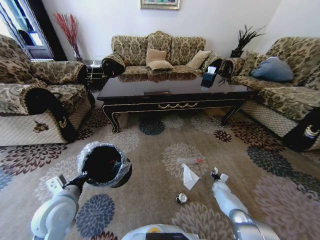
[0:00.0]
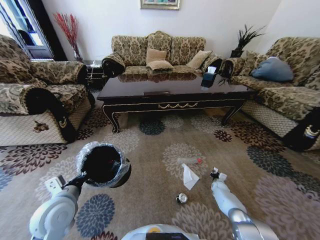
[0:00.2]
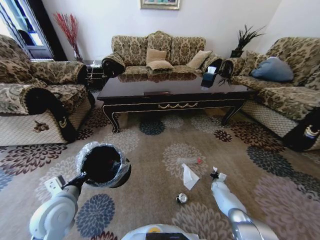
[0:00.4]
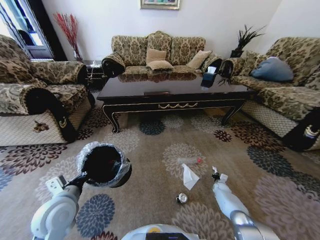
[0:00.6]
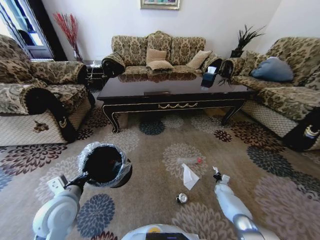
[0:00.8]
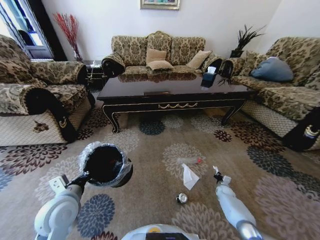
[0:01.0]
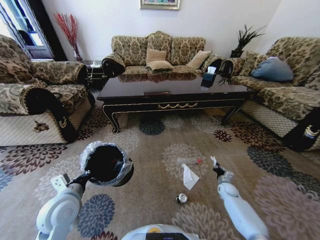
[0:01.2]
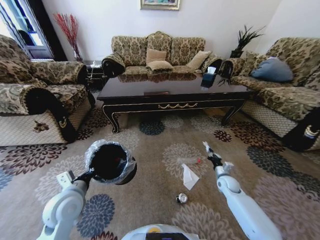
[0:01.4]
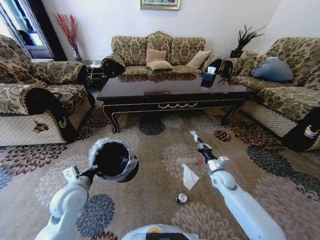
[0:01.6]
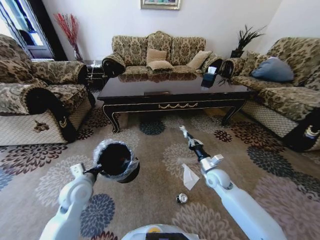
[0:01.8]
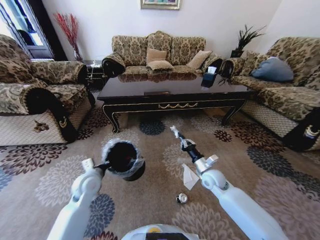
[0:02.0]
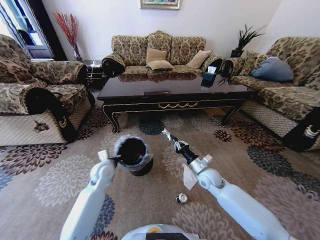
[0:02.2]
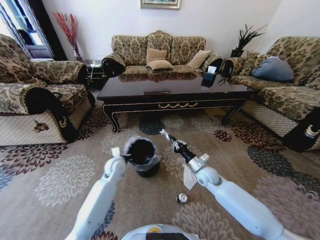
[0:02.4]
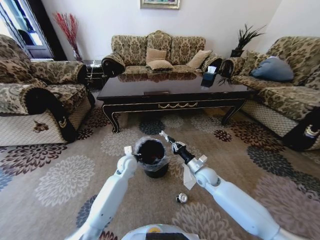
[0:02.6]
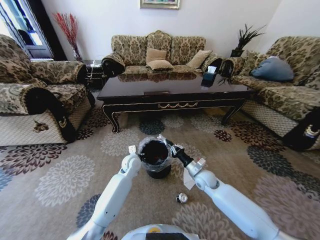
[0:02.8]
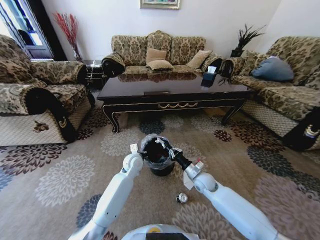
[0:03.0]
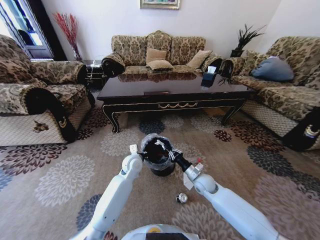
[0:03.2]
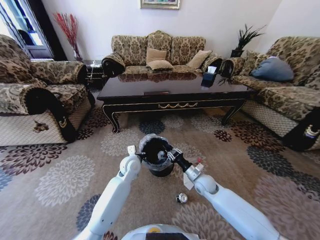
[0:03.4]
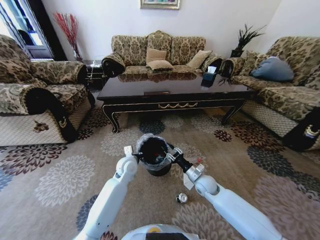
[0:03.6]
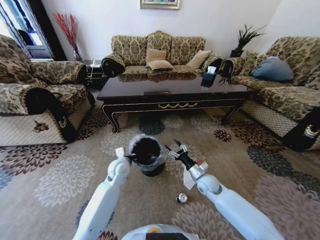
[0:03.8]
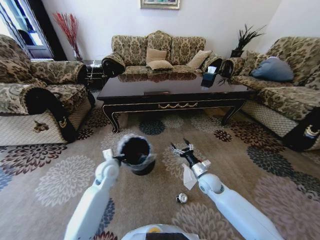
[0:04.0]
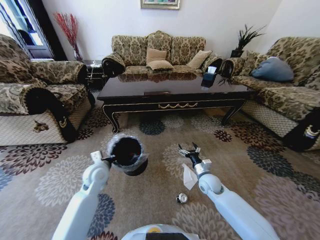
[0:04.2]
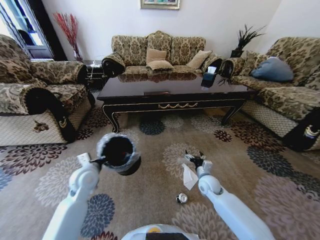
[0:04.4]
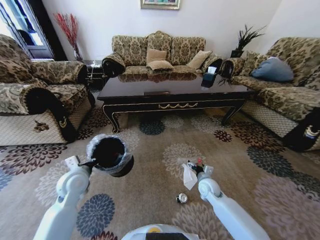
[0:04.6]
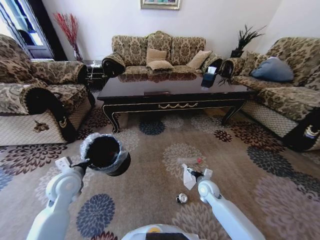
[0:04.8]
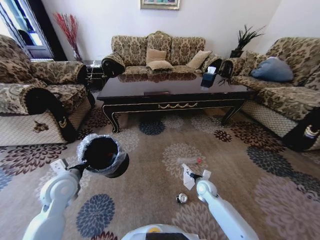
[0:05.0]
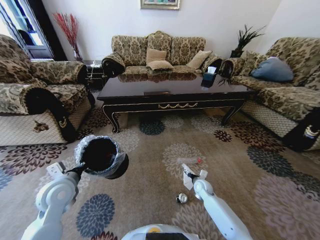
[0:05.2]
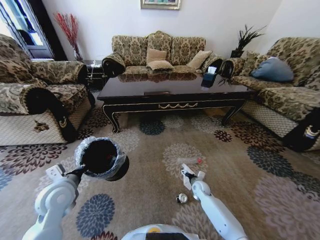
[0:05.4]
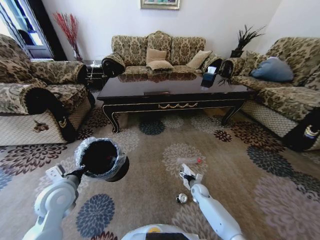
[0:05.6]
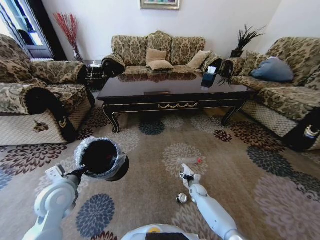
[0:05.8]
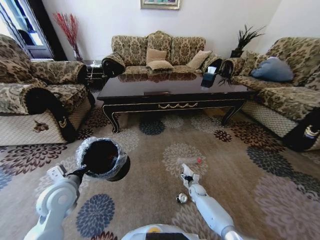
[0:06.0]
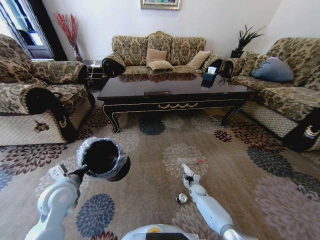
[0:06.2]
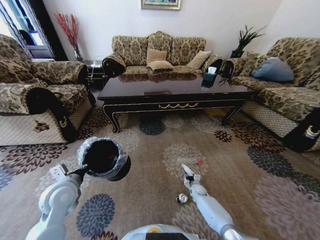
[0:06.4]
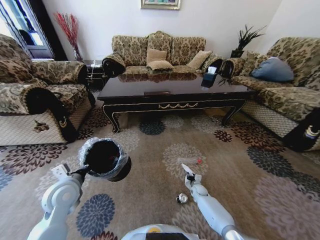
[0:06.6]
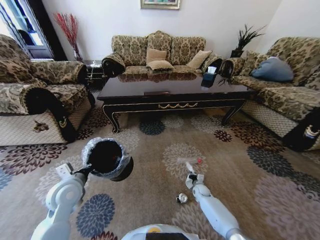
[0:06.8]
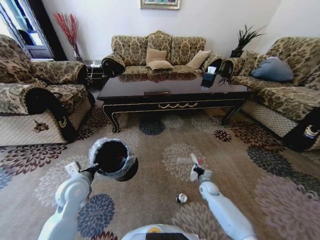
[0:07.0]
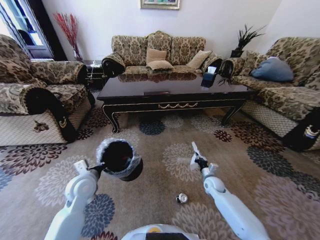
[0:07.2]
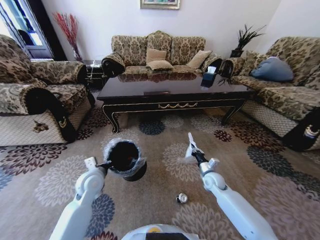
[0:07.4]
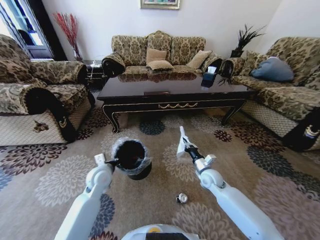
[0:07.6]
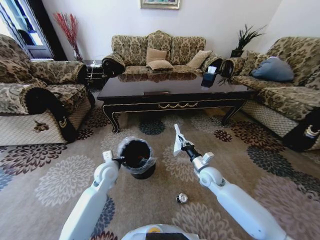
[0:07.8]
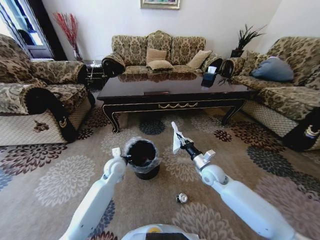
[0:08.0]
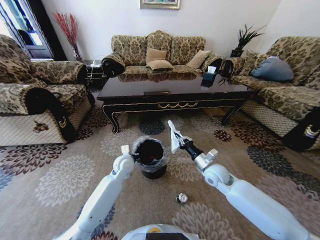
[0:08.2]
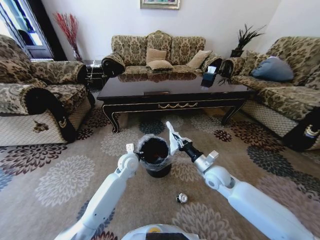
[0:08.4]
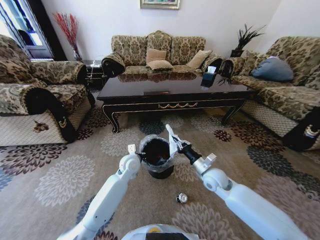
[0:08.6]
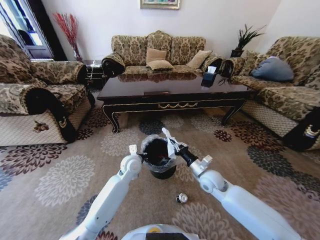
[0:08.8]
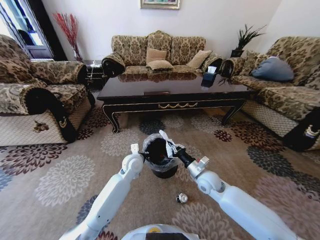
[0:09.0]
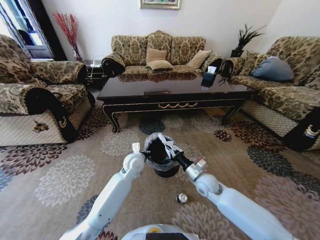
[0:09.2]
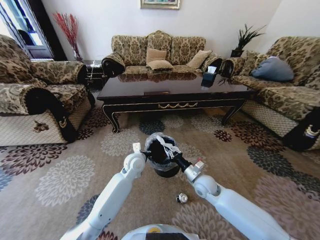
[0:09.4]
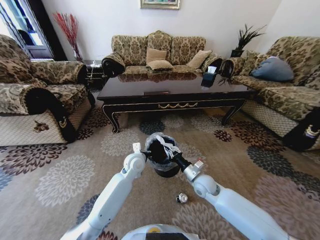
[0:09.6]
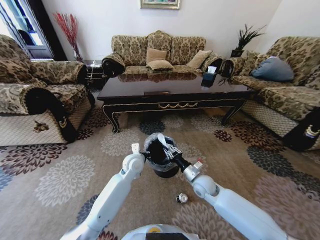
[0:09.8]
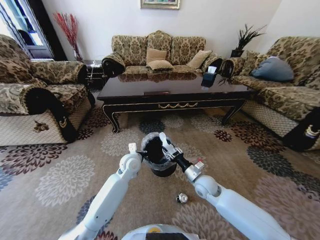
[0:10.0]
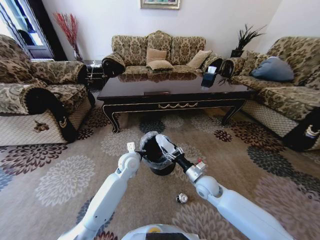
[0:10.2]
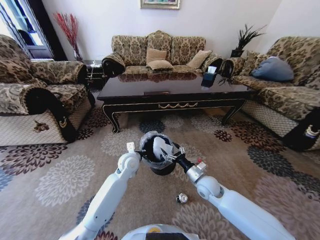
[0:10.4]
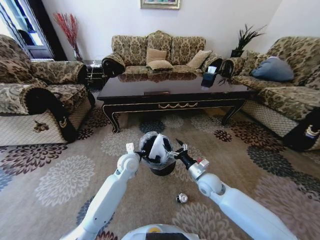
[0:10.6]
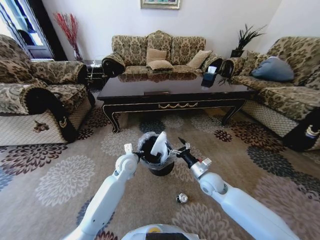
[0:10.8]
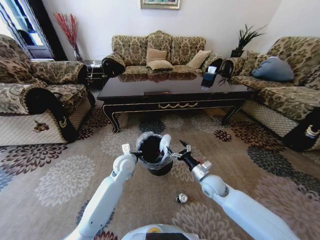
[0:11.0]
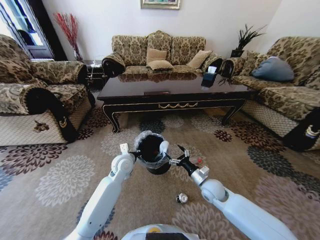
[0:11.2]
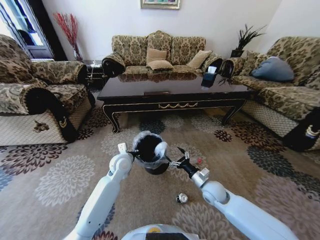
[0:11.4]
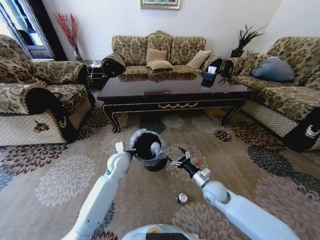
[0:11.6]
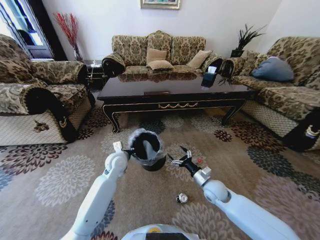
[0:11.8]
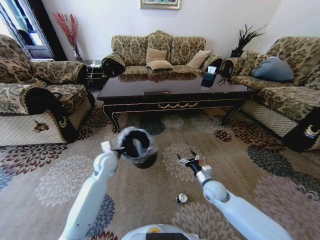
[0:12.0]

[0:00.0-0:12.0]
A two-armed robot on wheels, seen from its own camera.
Task of the whole recording: Move to the front of the table and pick up the trash from the floor, then place it into the trash bin.
0:00.0 to 0:01.6: The right gripper goes some 25 cm upward and to the left, and closes up.
0:01.6 to 0:03.0: The right gripper goes roughly 10 cm to the left; the left gripper travels to the right and forward by about 25 cm.
0:03.0 to 0:04.4: The left gripper travels to the left and backward by some 20 cm, while the right gripper opens up.
0:04.4 to 0:06.0: The left gripper is displaced backward by roughly 10 cm. The right gripper travels downward by about 20 cm.
0:06.0 to 0:07.6: The right gripper travels upward by some 20 cm, and closes up. Meanwhile the left gripper is displaced forward, to the right and downward by roughly 15 cm.
0:07.6 to 0:09.0: The left gripper is displaced to the right and forward by about 15 cm. Meanwhile the right gripper shifts by about 5 cm.
0:09.0 to 0:10.4: The right gripper opens up.
0:10.4 to 0:12.0: The left gripper goes roughly 10 cm to the left, while the right gripper ends up some 5 cm from where it was.

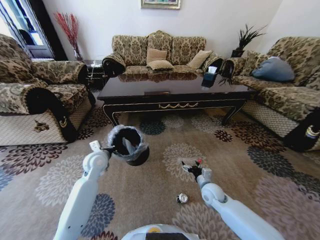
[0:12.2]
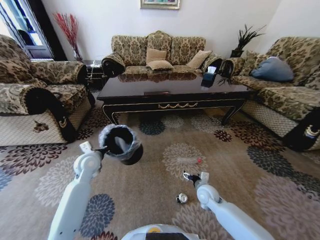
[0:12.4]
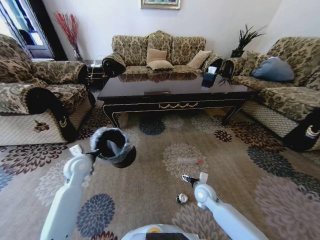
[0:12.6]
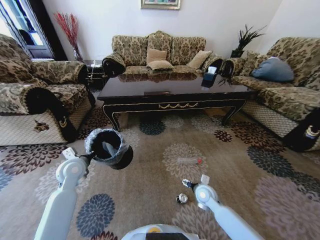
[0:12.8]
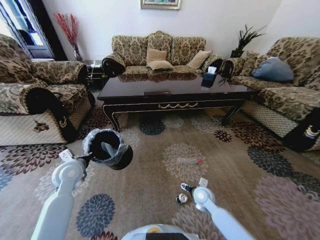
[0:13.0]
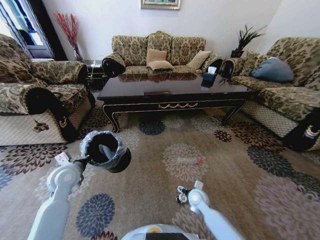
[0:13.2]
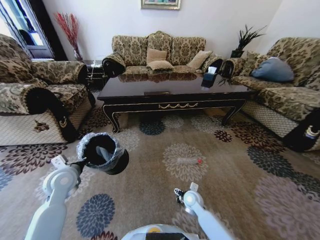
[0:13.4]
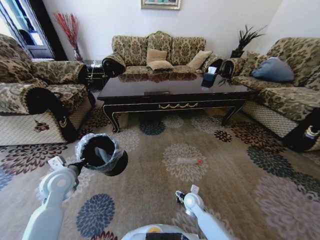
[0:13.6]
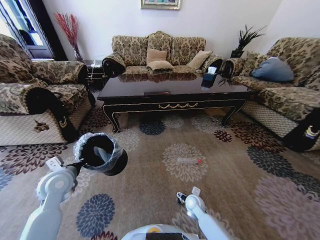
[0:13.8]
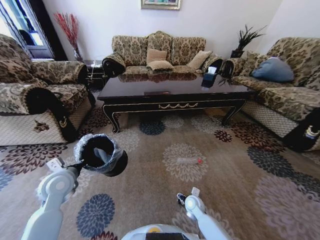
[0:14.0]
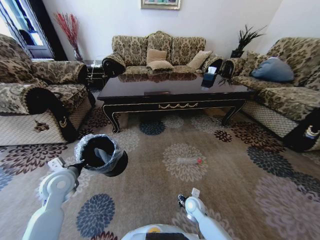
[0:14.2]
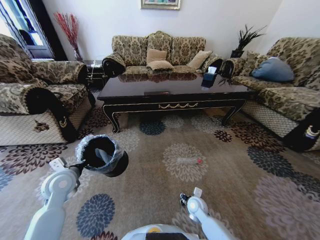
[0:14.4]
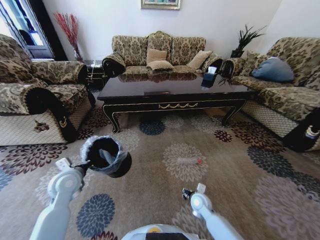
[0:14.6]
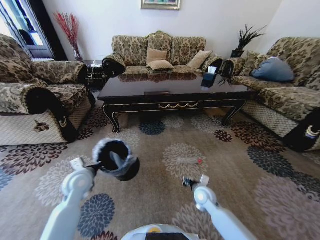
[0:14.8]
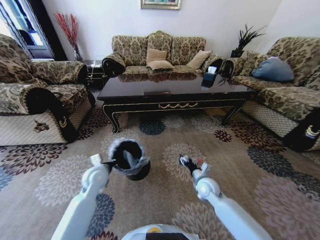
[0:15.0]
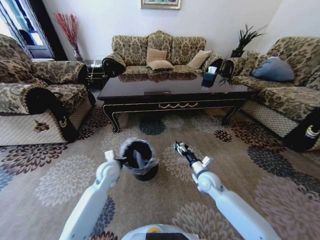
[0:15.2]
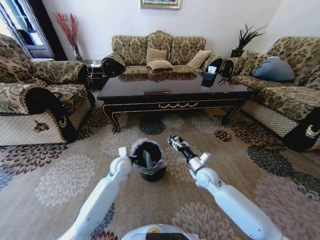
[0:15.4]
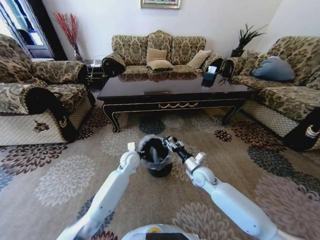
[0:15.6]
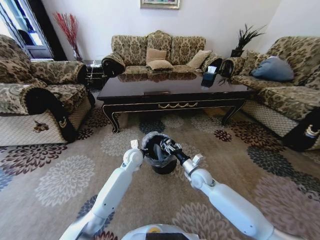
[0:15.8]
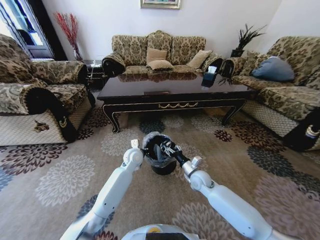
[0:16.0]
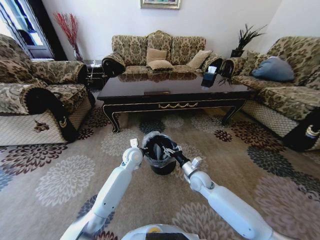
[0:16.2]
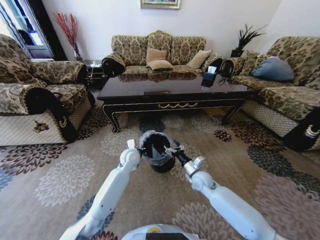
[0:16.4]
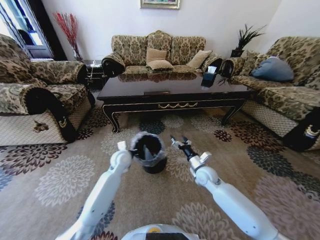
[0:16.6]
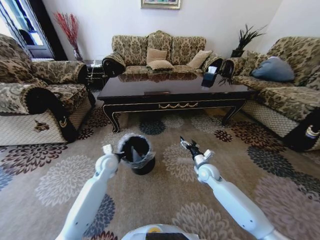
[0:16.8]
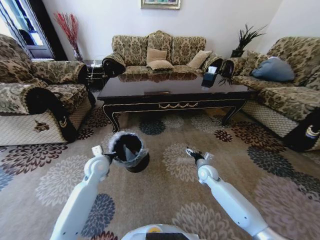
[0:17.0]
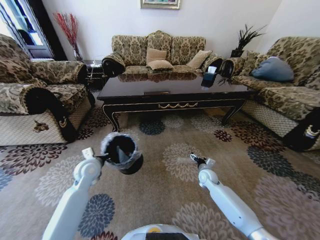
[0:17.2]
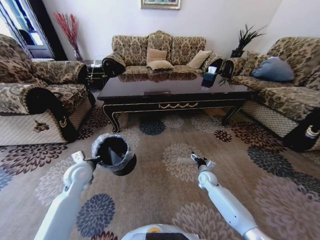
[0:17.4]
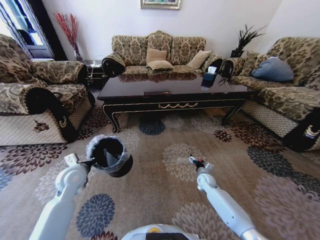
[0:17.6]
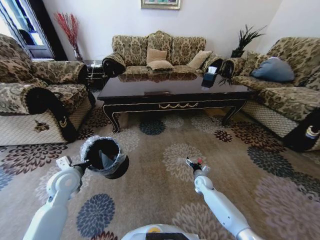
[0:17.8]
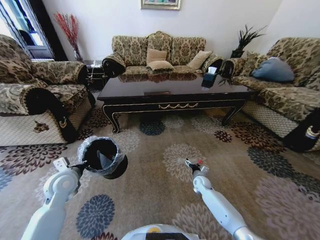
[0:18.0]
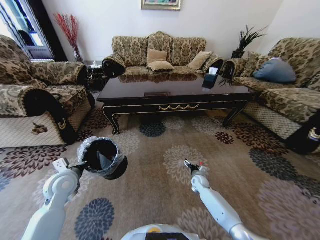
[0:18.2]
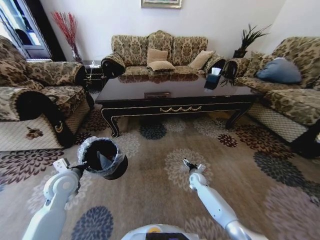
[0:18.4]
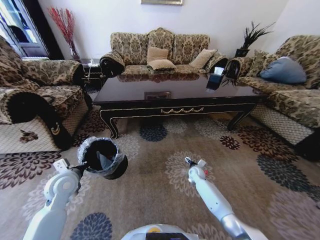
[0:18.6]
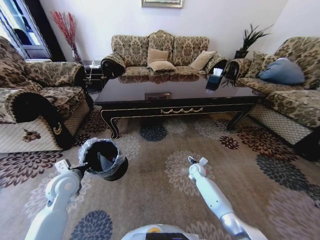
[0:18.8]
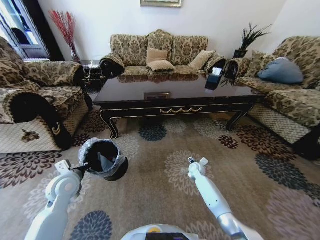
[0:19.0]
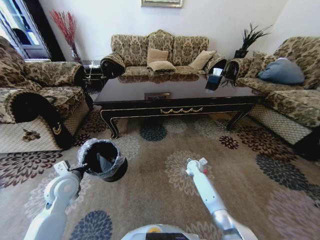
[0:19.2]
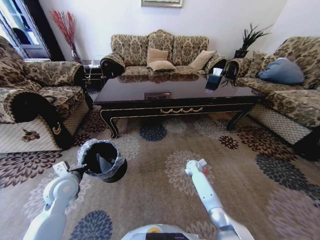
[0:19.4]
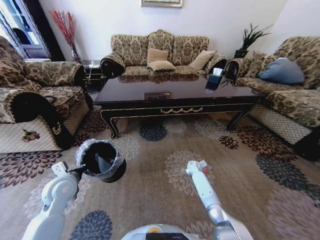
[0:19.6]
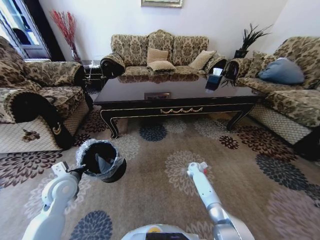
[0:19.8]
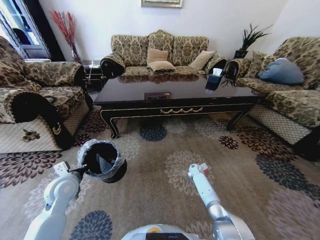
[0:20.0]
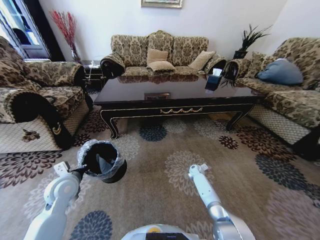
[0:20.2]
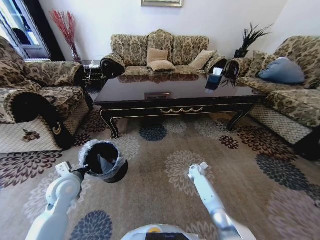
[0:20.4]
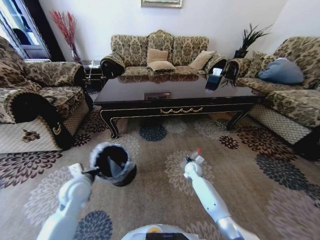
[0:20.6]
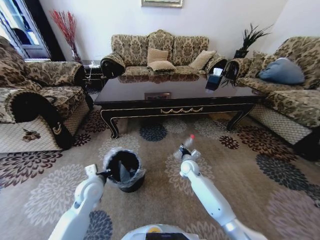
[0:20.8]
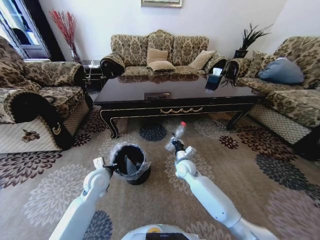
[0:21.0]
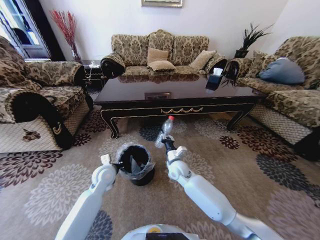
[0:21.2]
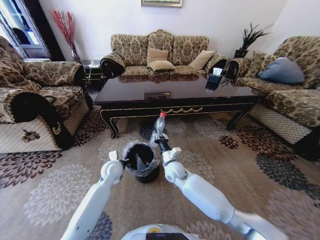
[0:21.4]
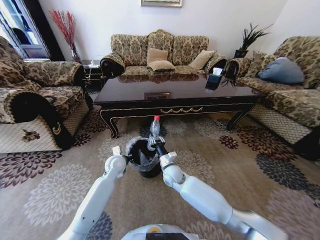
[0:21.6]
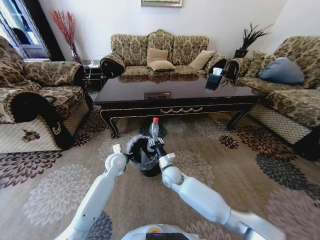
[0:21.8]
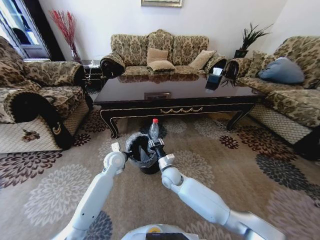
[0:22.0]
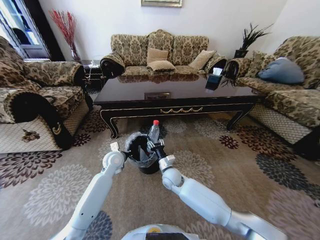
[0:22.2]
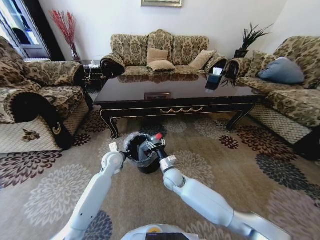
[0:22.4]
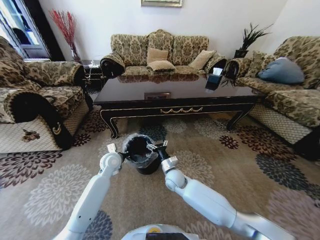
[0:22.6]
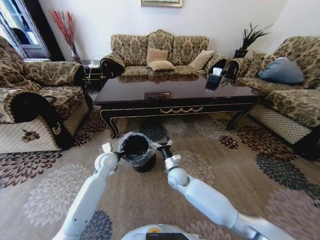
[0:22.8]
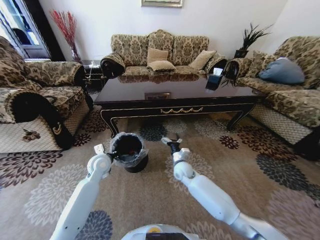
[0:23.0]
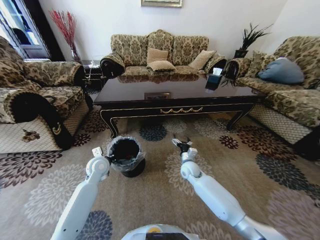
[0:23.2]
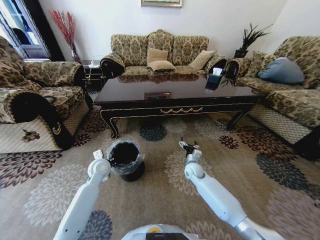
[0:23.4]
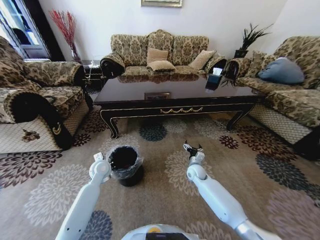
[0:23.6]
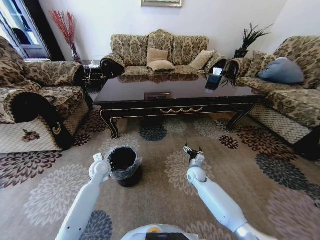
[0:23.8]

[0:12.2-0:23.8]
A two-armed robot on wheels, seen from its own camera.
Task of the whole recording: Move to the front of the table and pick up the trash from the floor, then place it into the trash bin.
0:12.2 to 0:13.6: The right gripper moves to the left and downward, roughly 10 cm. The left gripper is displaced backward and to the left by about 15 cm.
0:13.6 to 0:15.0: The right gripper moves upward and to the right, roughly 10 cm, and closes up, while the left gripper shifts approximately 10 cm to the right.
0:15.0 to 0:16.6: The left gripper is displaced forward and to the right by approximately 10 cm, while the right gripper shifts some 5 cm forward, and opens.
0:16.6 to 0:18.0: The right gripper shifts roughly 15 cm downward, while the left gripper goes approximately 20 cm to the left and backward.
0:18.0 to 0:19.4: The right gripper goes about 10 cm forward.
0:19.4 to 0:21.0: The right gripper travels upward, to the left and backward by roughly 15 cm, and closes. Meanwhile the left gripper is displaced to the right by roughly 10 cm.
0:21.0 to 0:22.4: The right gripper shifts about 10 cm to the left, and opens up. Meanwhile the left gripper is displaced forward by some 10 cm.
0:22.4 to 0:23.8: The left gripper goes roughly 5 cm to the left, while the right gripper moves to the right, some 15 cm.
